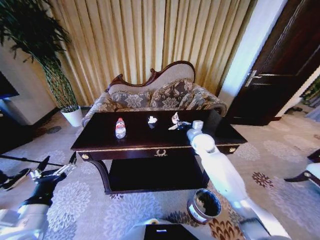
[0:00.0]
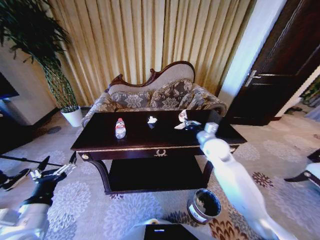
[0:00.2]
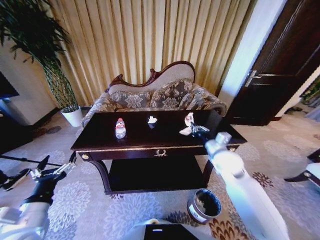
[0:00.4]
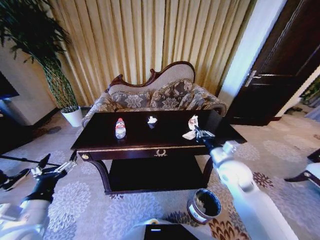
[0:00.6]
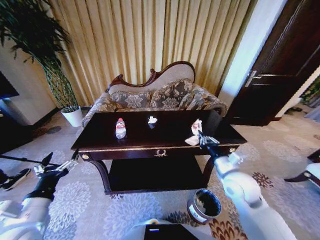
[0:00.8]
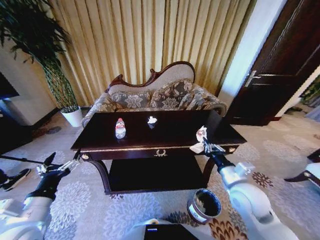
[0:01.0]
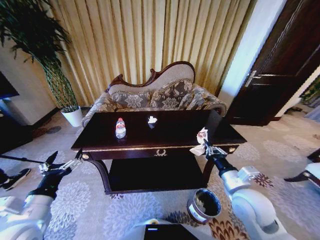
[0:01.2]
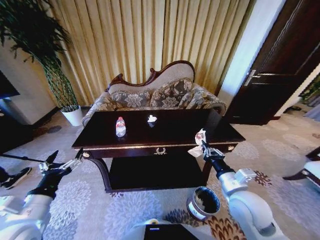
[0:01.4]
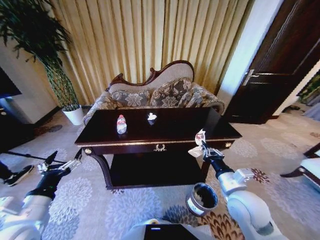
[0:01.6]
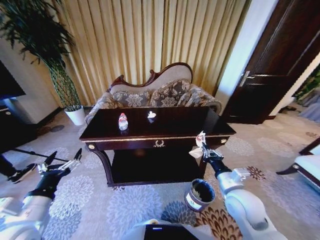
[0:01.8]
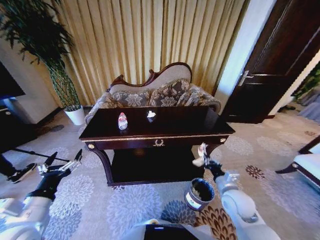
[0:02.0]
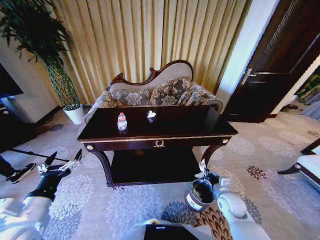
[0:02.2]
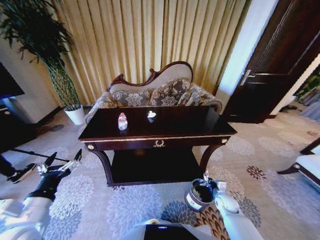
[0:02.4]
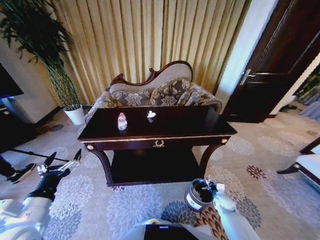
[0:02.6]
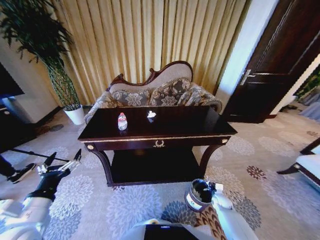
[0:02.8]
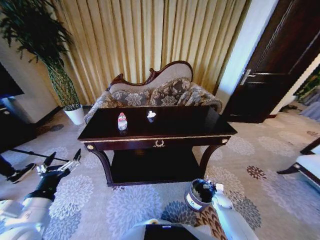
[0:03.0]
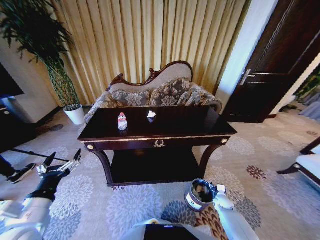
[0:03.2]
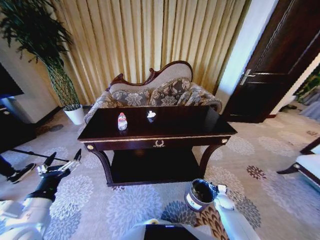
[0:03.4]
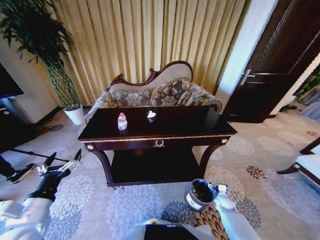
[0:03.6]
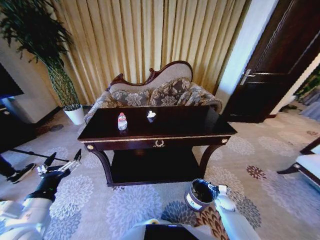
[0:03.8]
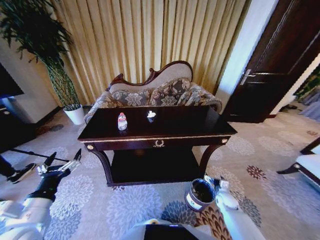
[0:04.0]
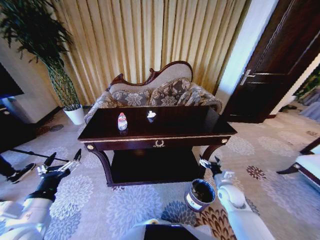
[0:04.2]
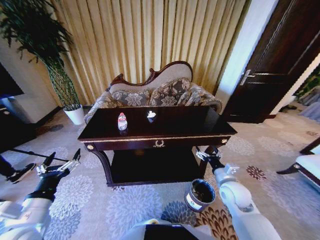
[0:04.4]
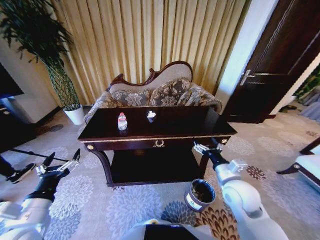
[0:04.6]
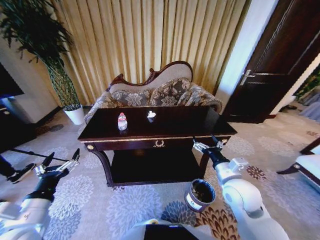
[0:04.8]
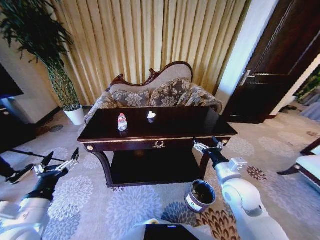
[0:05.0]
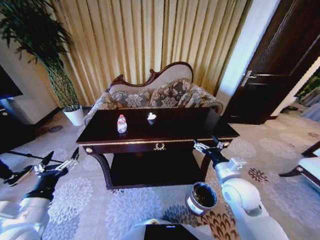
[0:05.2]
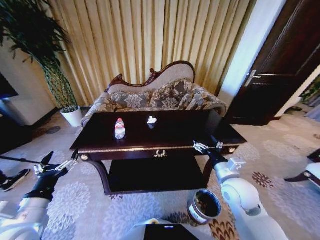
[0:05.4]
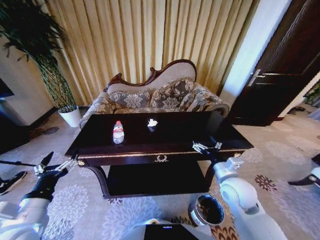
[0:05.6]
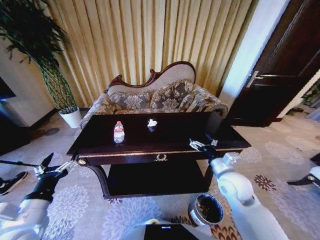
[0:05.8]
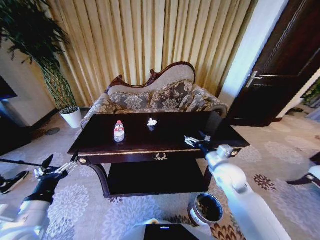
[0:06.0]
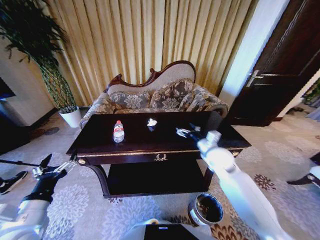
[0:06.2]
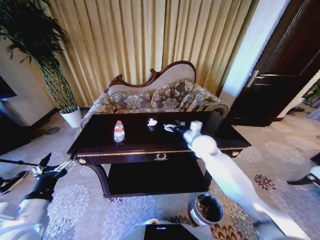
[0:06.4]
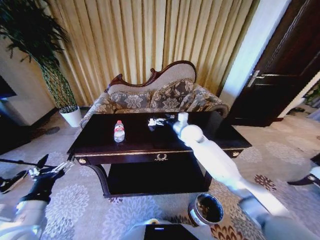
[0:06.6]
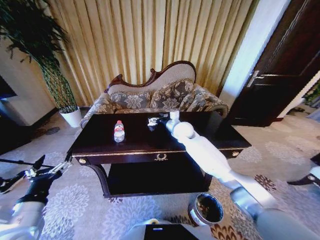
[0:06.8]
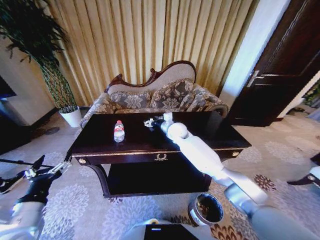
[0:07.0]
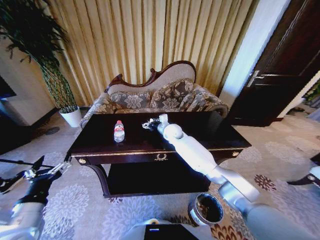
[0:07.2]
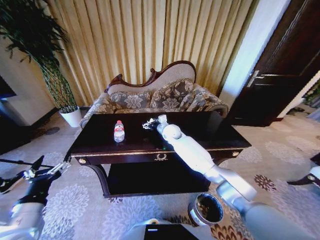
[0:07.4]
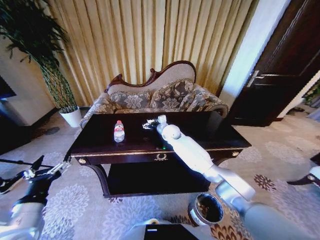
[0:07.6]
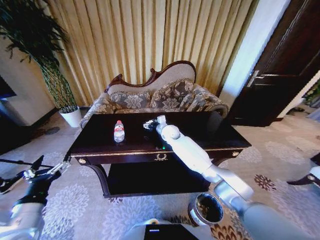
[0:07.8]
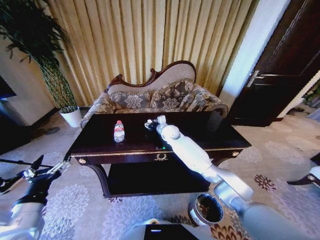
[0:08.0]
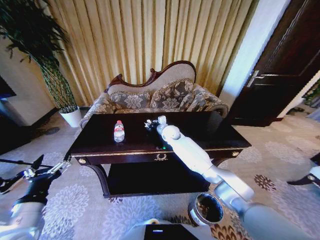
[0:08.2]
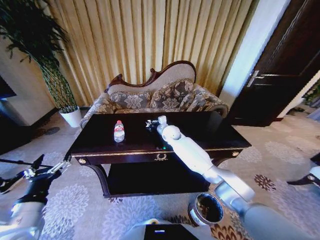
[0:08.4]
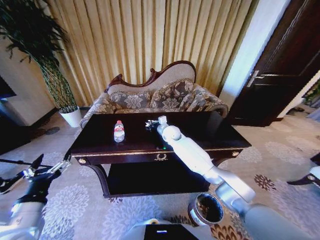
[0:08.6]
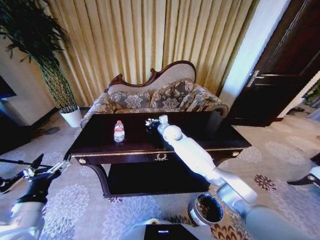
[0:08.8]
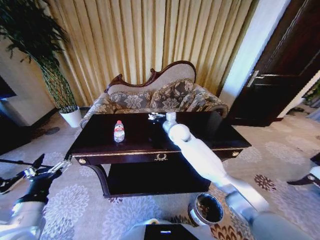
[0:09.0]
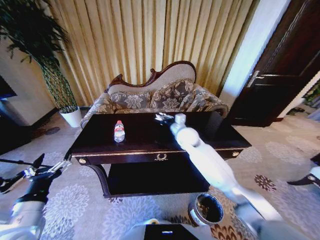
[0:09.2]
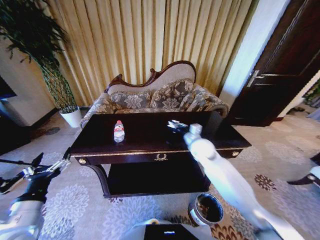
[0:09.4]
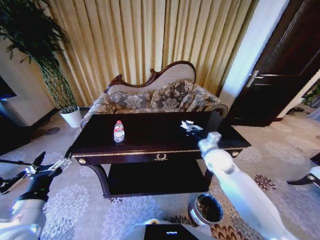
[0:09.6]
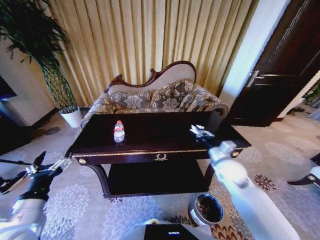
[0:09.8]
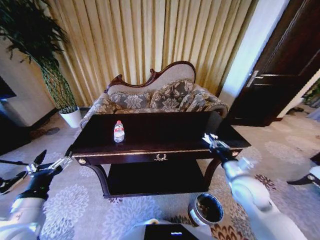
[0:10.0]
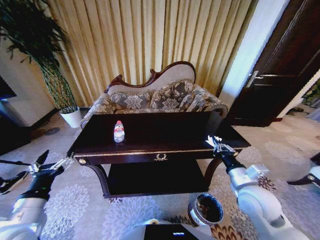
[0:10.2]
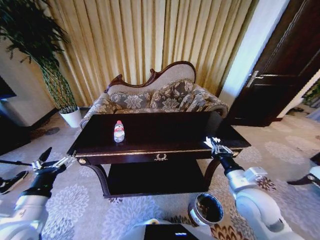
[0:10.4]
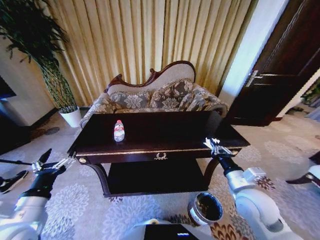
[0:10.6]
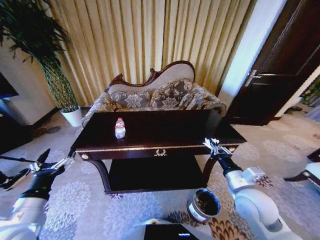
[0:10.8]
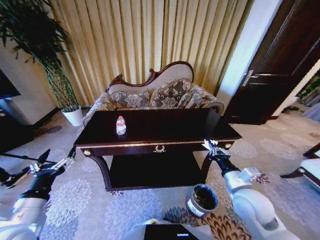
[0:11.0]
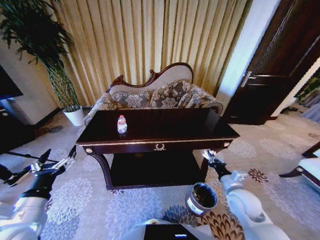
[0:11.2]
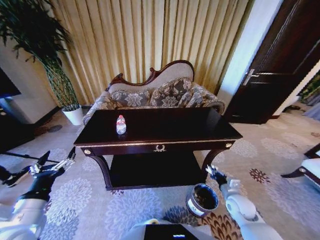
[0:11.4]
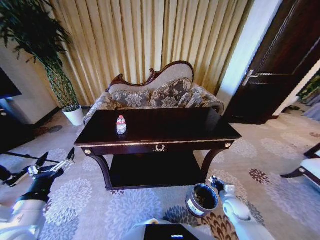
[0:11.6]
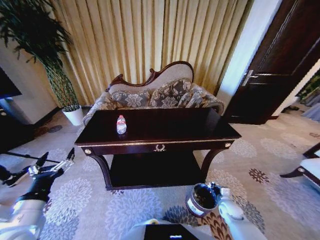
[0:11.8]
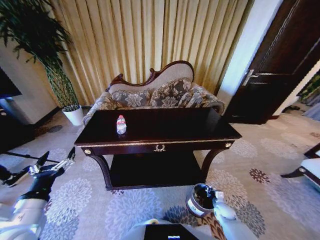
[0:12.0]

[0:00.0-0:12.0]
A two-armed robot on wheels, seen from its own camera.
Task of the whole recording: Move to the front of the table and place the trash on the table into the trash bin.
0:00.0 to 0:01.6: The right gripper moves backward, some 25 cm.
0:01.6 to 0:03.0: The right gripper moves downward, some 35 cm, and opens up.
0:03.0 to 0:04.4: The right gripper heads upward, covering roughly 25 cm, and opens up.
0:04.4 to 0:06.0: The right gripper is displaced upward by about 10 cm.
0:06.0 to 0:07.6: The right gripper moves forward and to the left, some 30 cm.
0:07.6 to 0:09.0: The right gripper goes about 5 cm backward, and closes up.
0:09.0 to 0:10.4: The right gripper travels backward and to the right by about 35 cm.
0:10.4 to 0:12.0: The right gripper travels downward by about 35 cm.

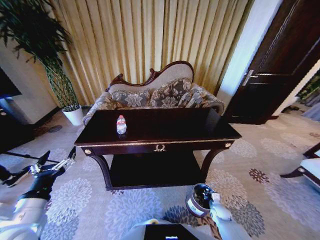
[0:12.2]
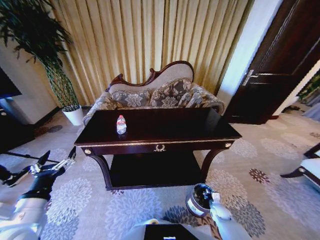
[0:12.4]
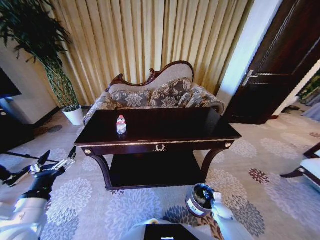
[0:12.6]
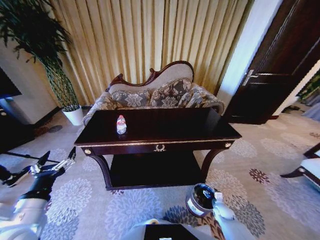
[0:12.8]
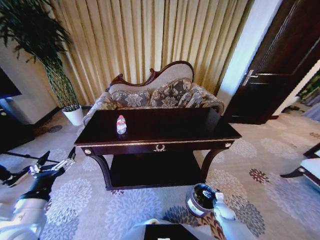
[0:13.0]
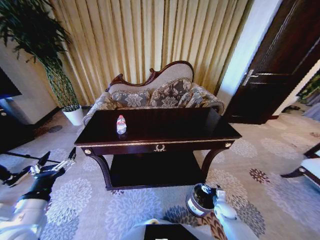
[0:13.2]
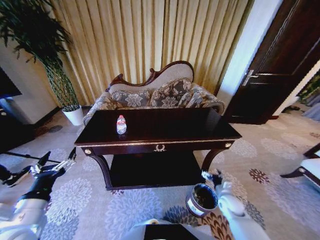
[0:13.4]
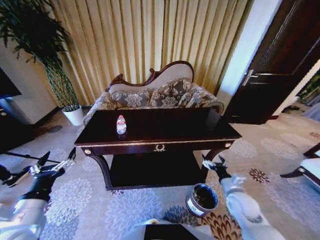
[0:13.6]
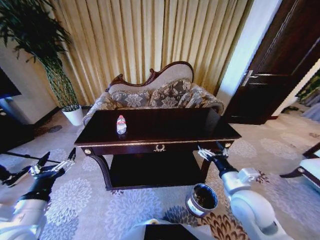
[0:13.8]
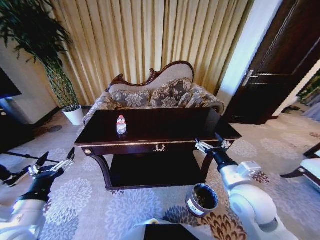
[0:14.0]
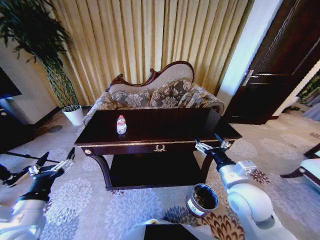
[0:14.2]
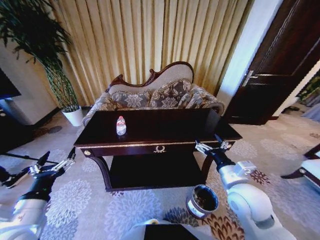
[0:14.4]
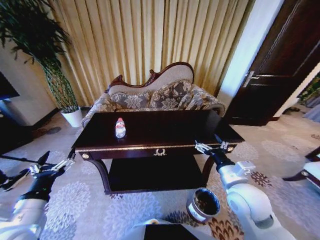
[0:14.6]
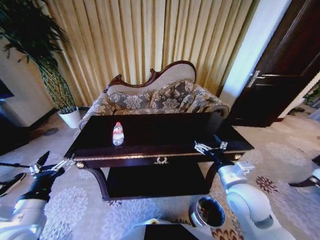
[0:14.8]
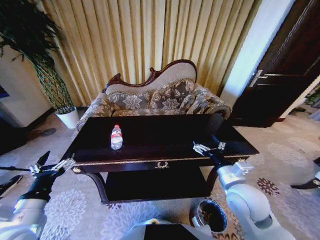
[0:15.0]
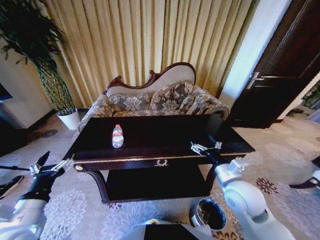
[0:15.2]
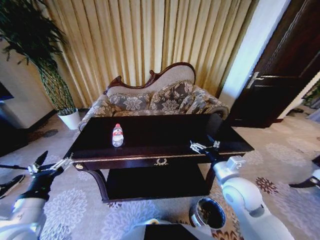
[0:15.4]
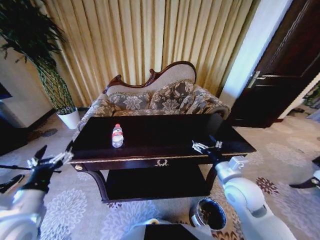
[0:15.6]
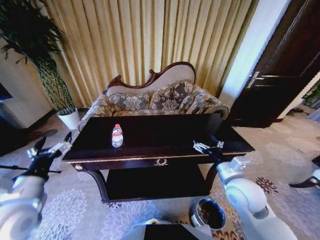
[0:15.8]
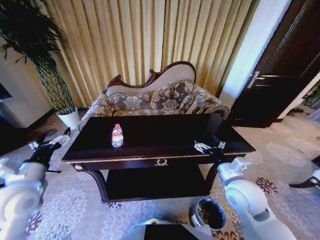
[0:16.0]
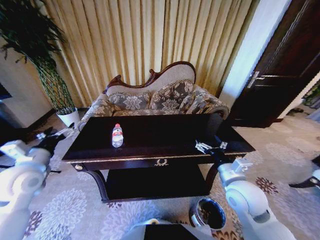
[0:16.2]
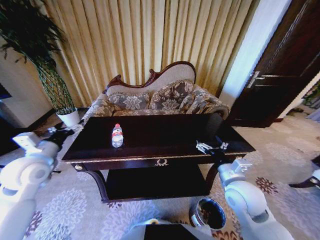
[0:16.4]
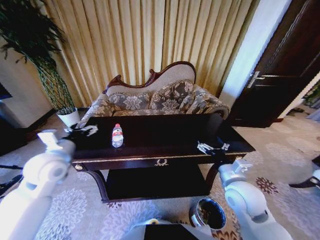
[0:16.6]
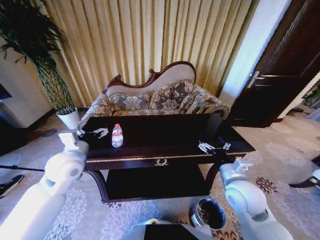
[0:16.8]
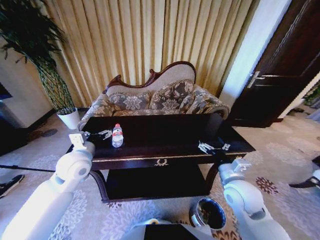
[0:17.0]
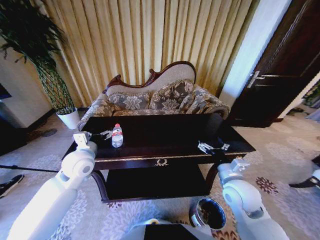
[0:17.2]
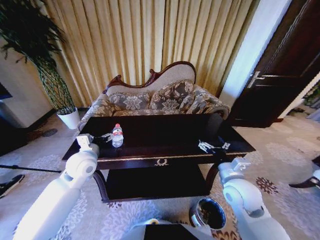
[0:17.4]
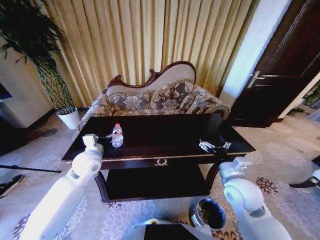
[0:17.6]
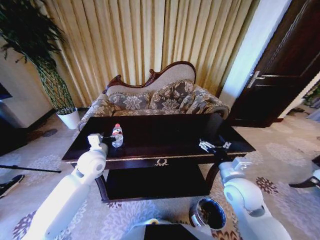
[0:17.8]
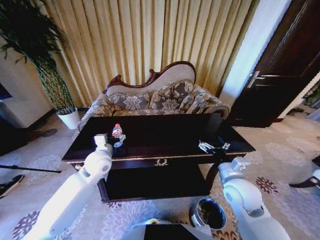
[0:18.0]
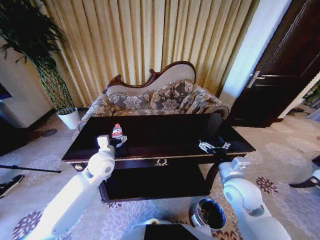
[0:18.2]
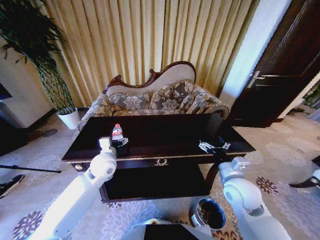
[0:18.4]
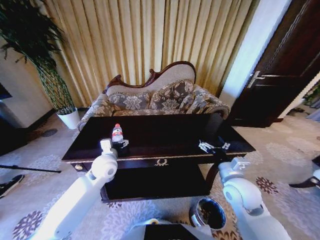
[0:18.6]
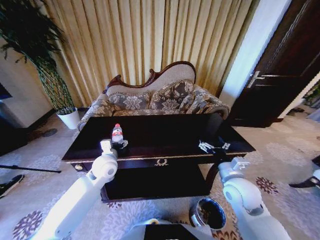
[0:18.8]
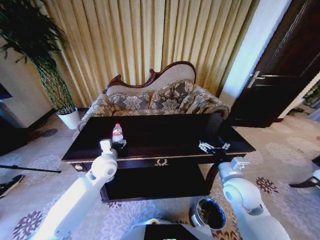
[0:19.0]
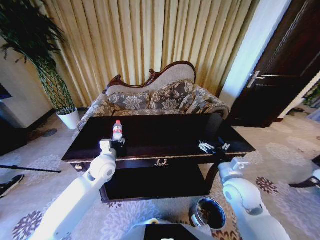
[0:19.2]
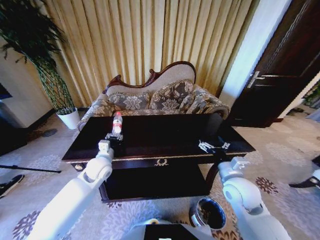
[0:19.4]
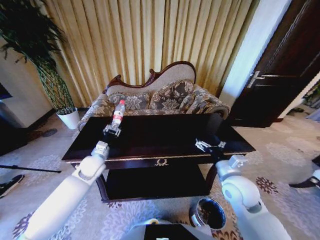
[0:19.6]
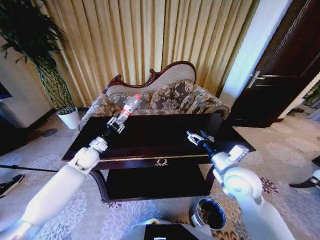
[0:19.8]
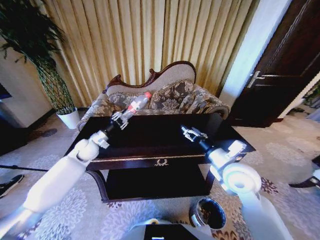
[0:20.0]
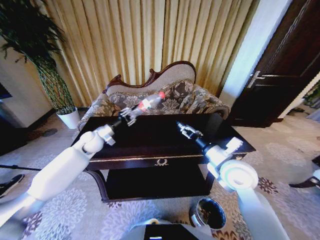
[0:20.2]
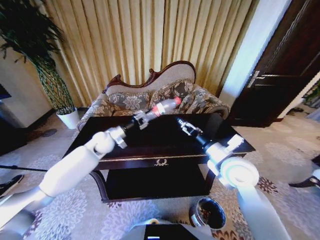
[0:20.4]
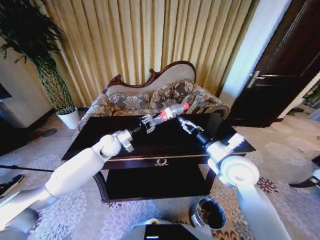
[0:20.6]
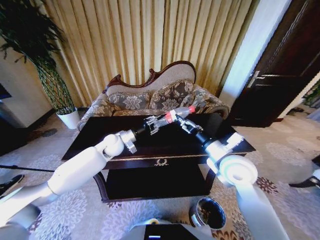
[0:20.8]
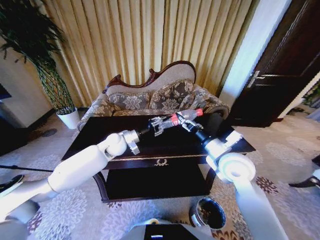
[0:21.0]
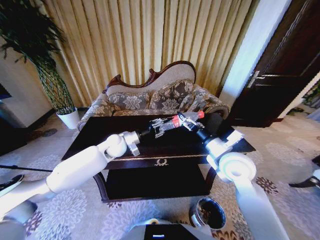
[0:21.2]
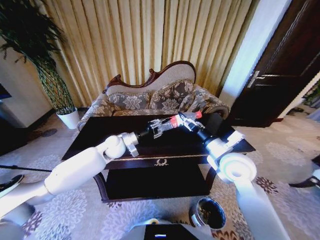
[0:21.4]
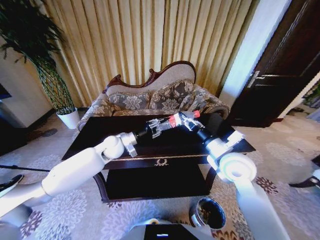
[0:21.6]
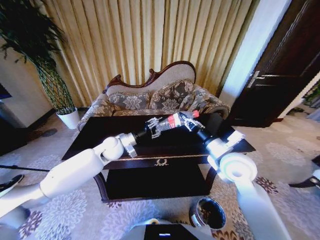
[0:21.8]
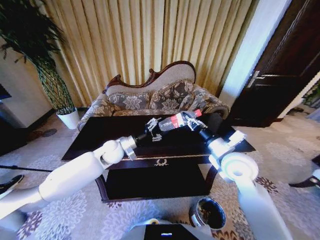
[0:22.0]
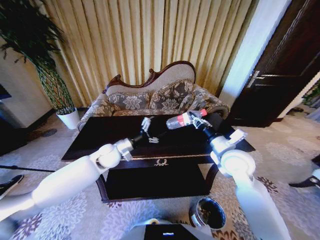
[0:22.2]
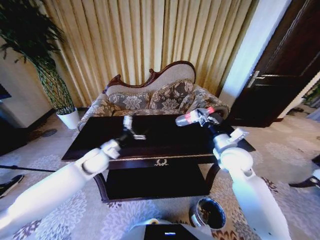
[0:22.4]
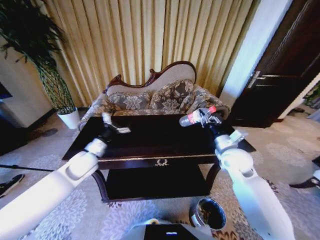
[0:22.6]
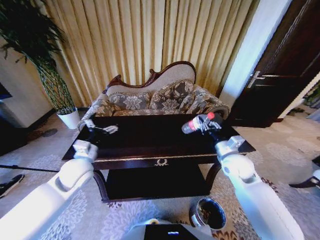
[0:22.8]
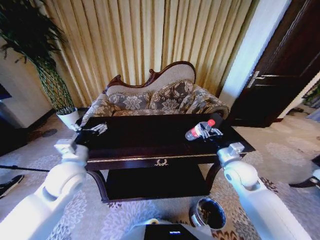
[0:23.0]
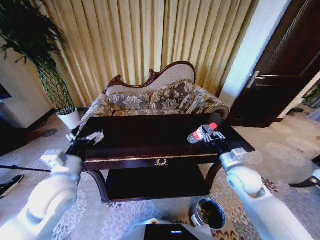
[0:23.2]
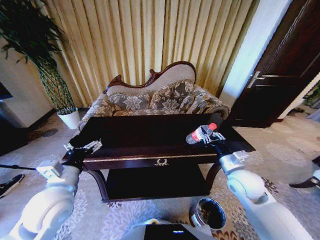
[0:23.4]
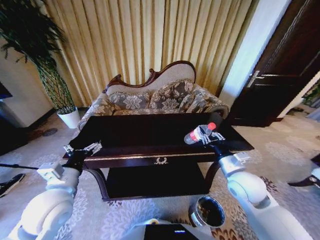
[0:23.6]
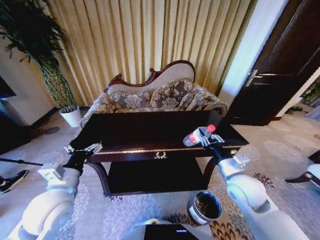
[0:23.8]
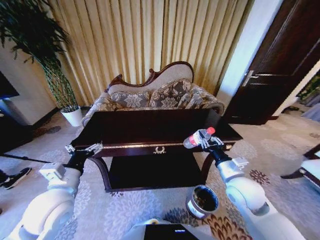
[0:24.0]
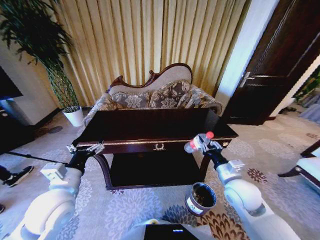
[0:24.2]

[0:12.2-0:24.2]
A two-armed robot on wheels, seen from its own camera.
Task of the whole recording: Move to the front of the table and place the trash on the table into the trash bin.
0:12.2 to 0:13.8: The right gripper goes approximately 35 cm upward, and opens its fingers.
0:15.2 to 0:16.6: The left gripper is displaced forward by roughly 20 cm.
0:16.6 to 0:18.2: The left gripper heads to the right, downward and forward, covering some 15 cm.
0:18.2 to 0:19.8: The left gripper heads to the left and forward, covering some 10 cm, and closes. The right gripper changes place by some 5 cm.
0:19.8 to 0:21.2: The left gripper is displaced to the right by roughly 15 cm, while the right gripper moves some 5 cm.
0:21.2 to 0:22.6: The right gripper moves to the right, approximately 5 cm, and closes its fingers, while the left gripper goes about 15 cm to the left and backward, and opens its fingers.
0:22.6 to 0:24.2: The right gripper goes some 10 cm backward and downward; the left gripper heads backward, covering about 15 cm.
